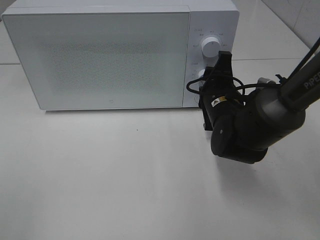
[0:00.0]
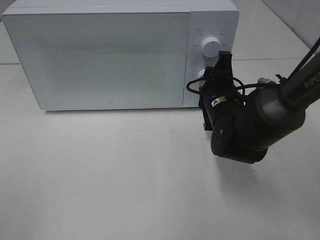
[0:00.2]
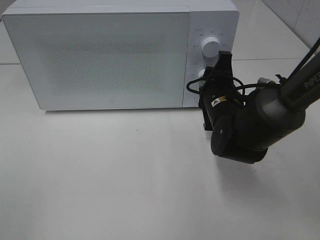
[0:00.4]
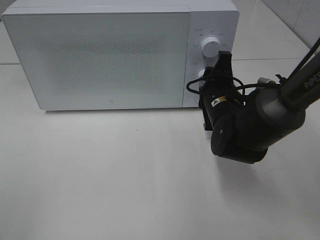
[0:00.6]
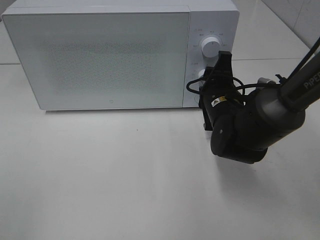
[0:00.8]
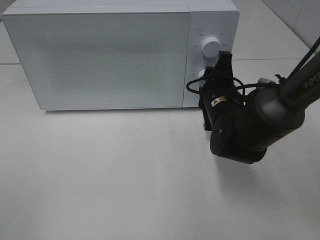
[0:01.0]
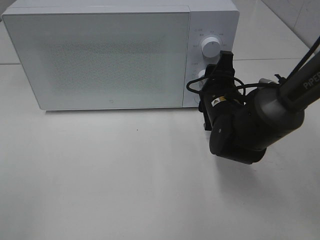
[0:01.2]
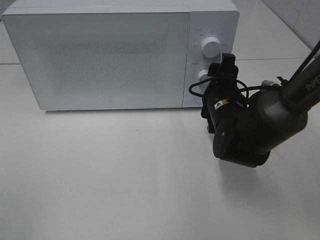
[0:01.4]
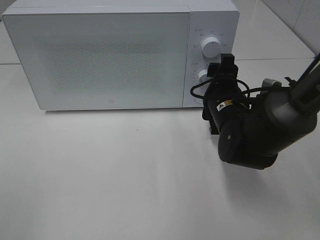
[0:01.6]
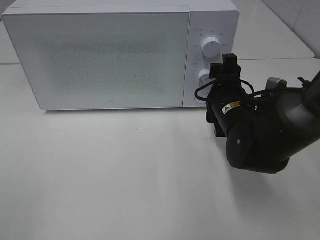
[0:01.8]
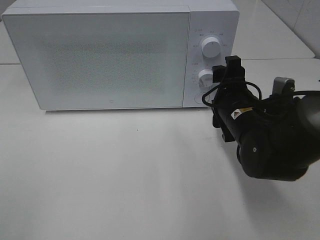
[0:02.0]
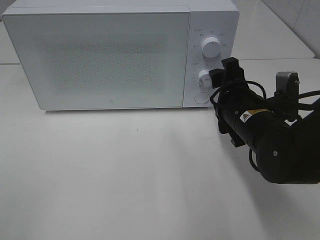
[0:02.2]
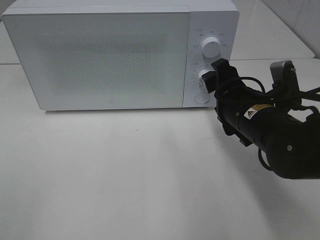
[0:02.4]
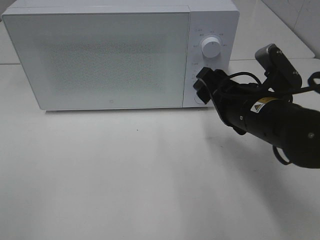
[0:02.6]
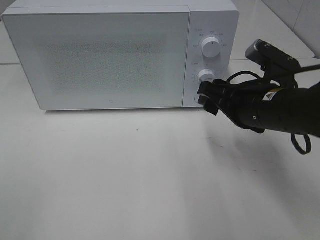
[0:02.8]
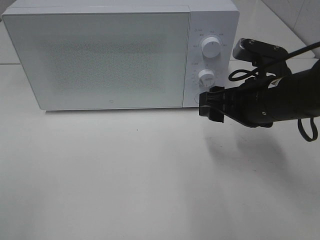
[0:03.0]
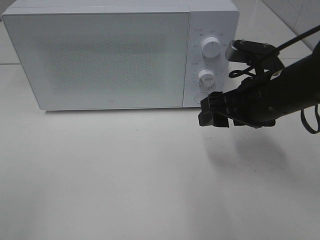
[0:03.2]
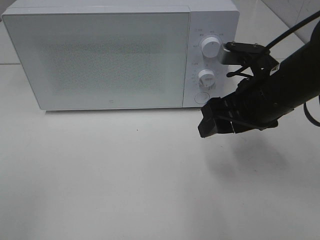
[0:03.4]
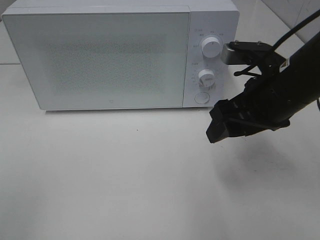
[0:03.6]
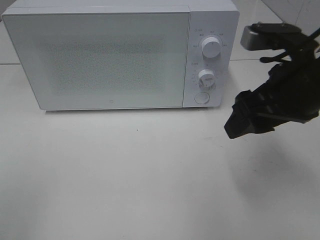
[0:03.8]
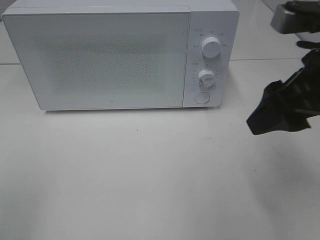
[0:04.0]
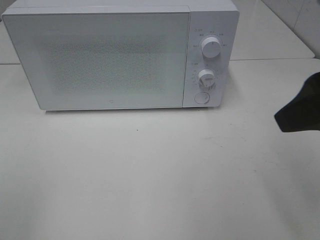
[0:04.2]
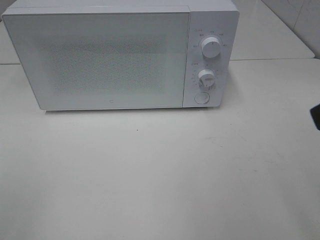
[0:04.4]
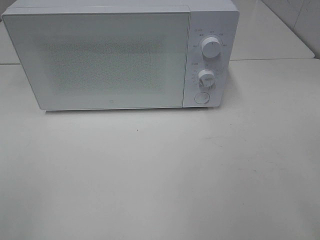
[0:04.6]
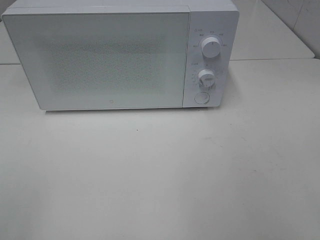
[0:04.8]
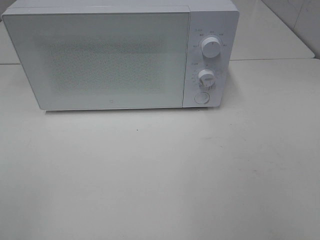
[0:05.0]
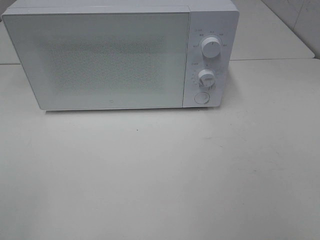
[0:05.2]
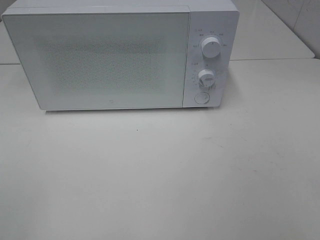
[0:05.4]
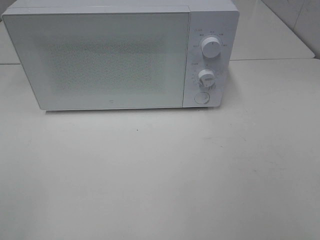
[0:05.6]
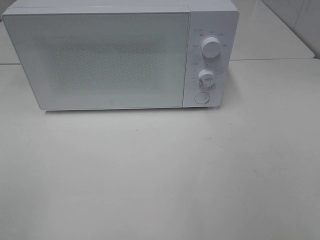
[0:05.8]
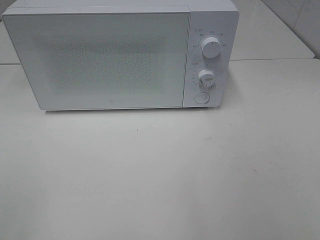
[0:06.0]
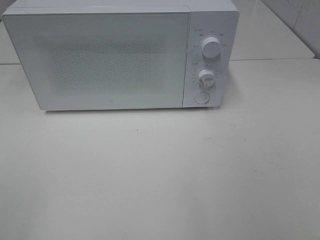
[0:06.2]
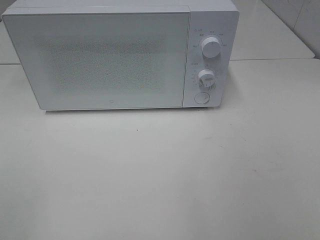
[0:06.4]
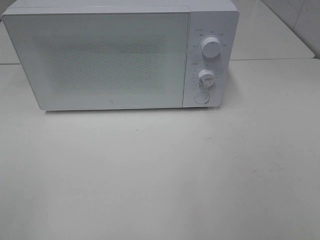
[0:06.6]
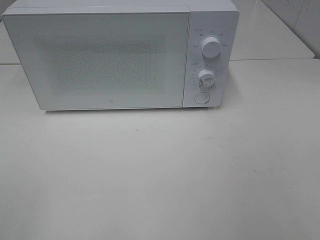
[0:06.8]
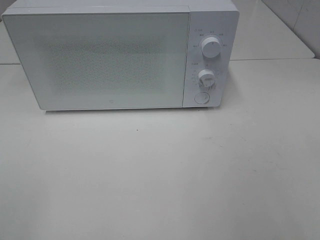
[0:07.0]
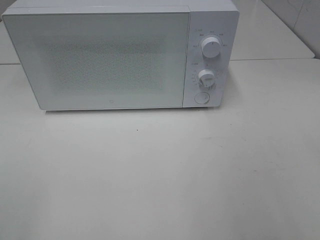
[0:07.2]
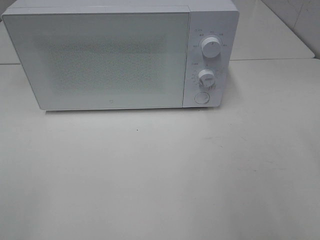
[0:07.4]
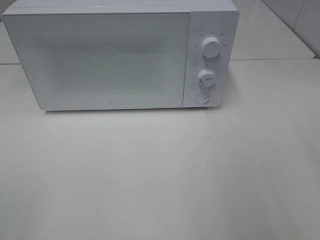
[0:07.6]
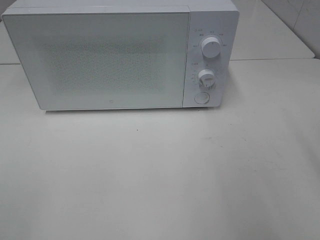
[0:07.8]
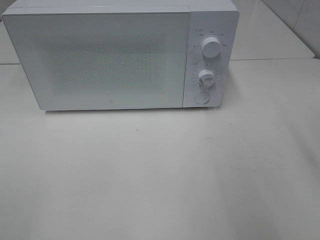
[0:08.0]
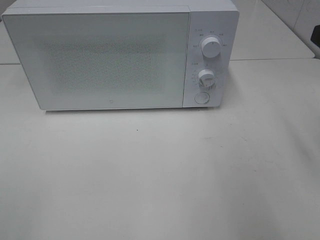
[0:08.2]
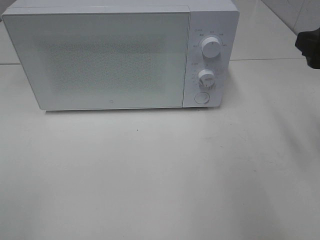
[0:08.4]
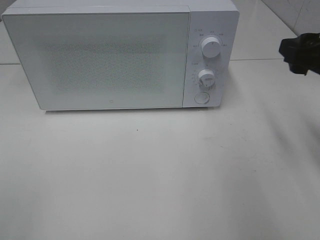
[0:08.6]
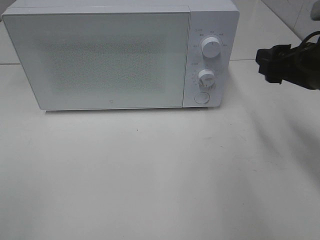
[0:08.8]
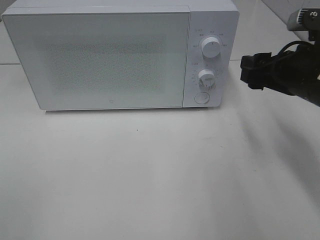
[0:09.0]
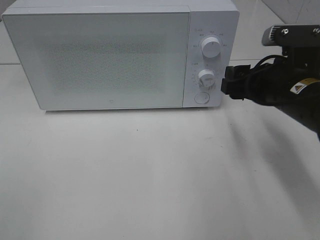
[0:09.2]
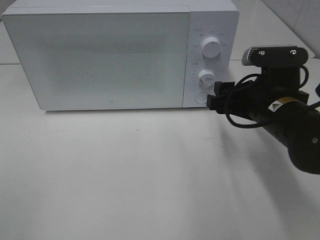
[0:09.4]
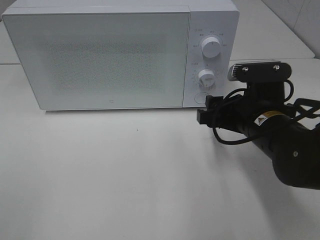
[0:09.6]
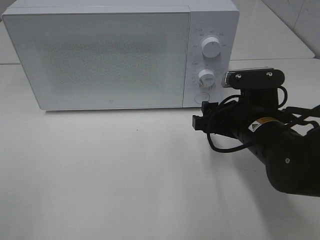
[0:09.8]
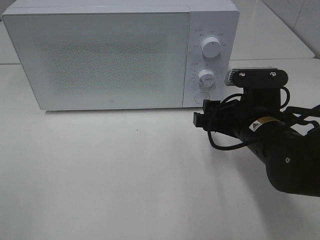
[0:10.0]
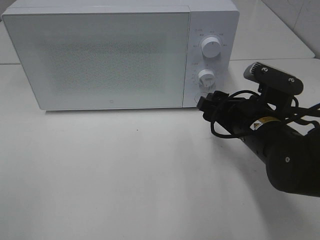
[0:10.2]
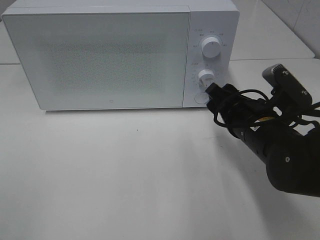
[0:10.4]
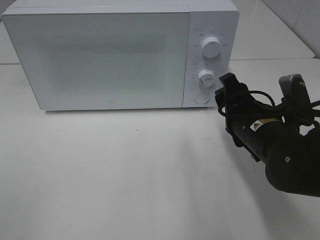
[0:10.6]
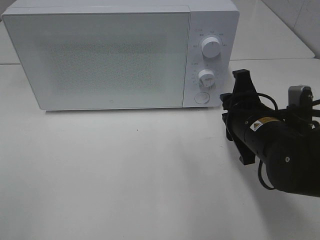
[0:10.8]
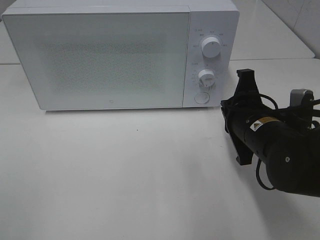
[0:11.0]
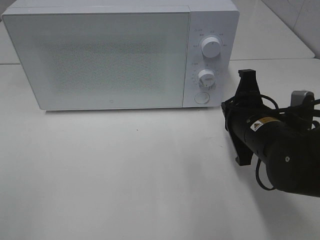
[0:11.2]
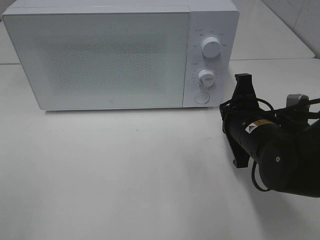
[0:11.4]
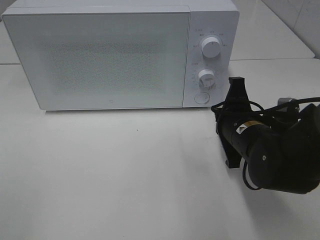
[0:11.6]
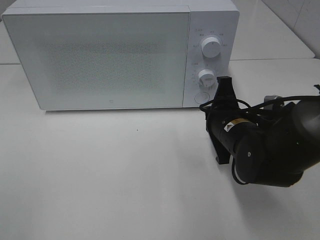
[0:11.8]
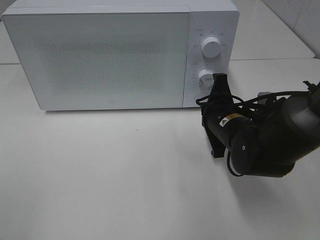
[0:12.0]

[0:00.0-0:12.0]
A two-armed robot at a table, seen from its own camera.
Task of the whole recording: Heat Sandwich.
0:00.0 to 0:01.6: Neither gripper changes place.
0:01.6 to 0:03.0: The right gripper goes approximately 10 cm upward and backward.
0:03.0 to 0:04.4: The right gripper heads upward, backward and to the right, covering about 20 cm.
0:07.6 to 0:09.0: The right gripper shifts some 20 cm forward, downward and to the left.
0:09.0 to 0:10.4: The right gripper moves downward and to the left, approximately 10 cm.
0:10.4 to 0:12.0: The right gripper ends up some 5 cm from where it was, and closes up.

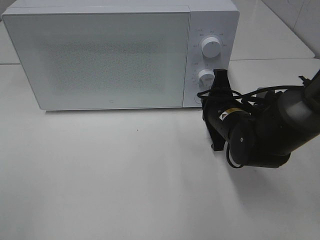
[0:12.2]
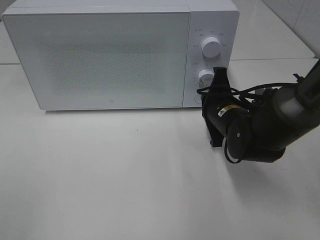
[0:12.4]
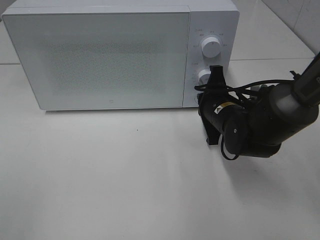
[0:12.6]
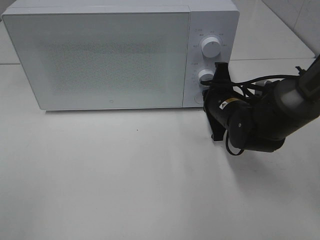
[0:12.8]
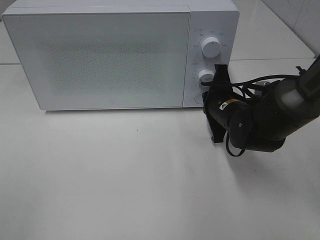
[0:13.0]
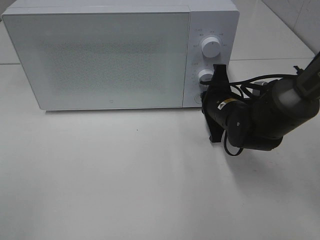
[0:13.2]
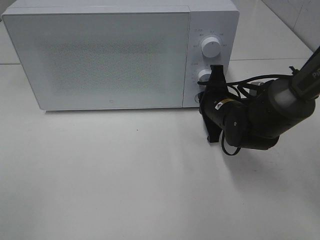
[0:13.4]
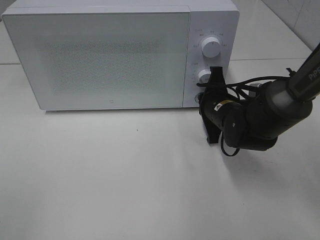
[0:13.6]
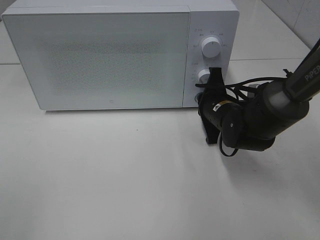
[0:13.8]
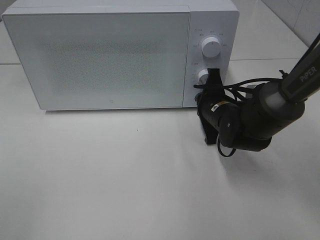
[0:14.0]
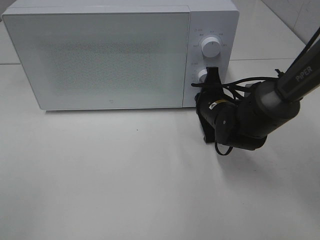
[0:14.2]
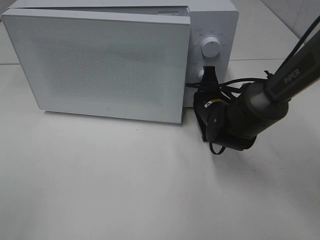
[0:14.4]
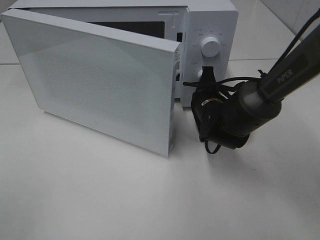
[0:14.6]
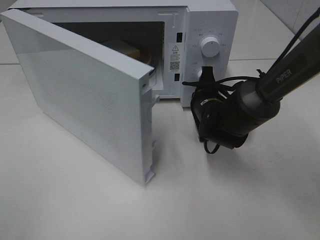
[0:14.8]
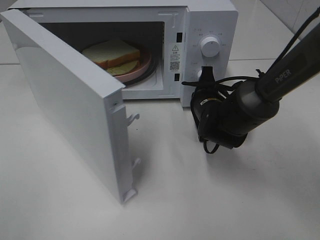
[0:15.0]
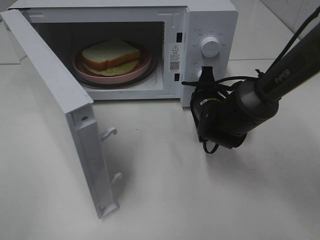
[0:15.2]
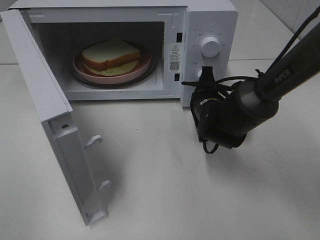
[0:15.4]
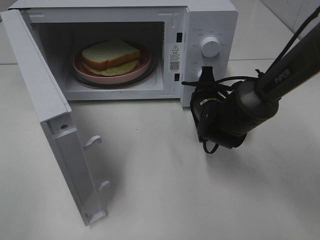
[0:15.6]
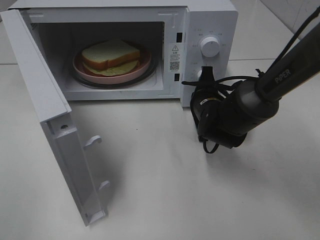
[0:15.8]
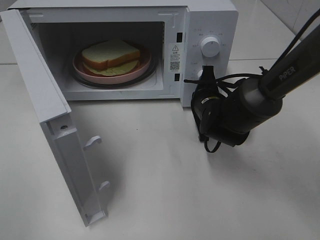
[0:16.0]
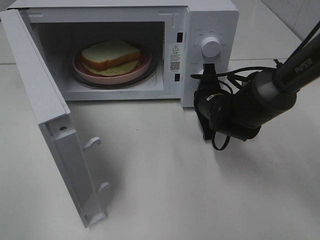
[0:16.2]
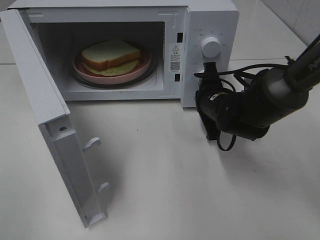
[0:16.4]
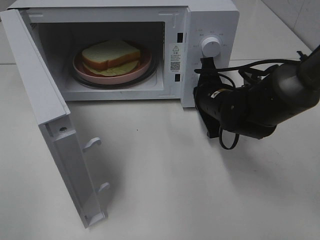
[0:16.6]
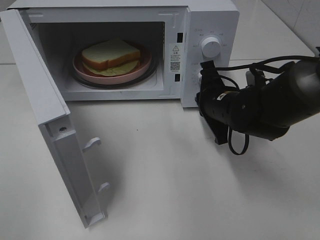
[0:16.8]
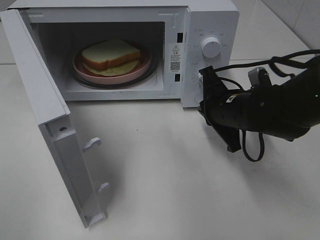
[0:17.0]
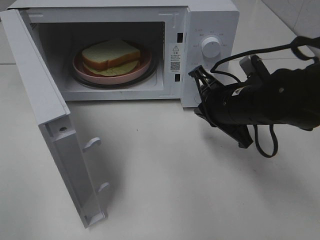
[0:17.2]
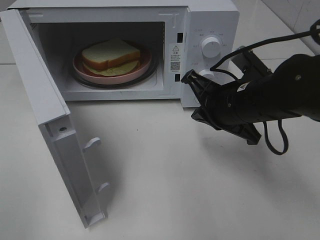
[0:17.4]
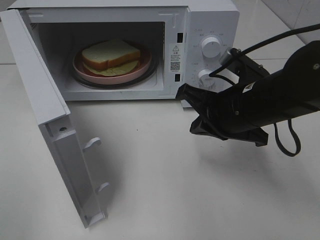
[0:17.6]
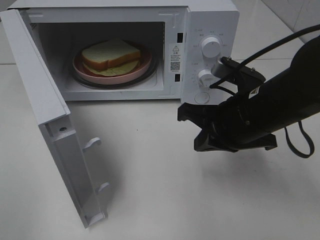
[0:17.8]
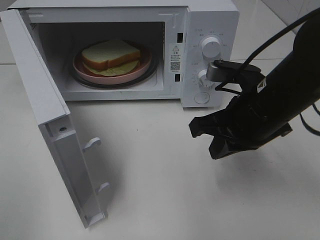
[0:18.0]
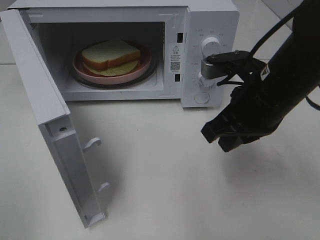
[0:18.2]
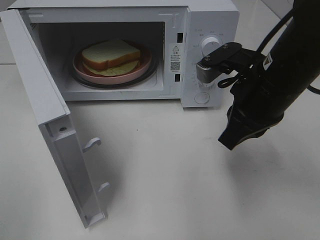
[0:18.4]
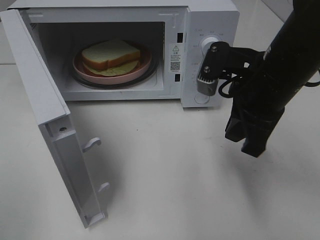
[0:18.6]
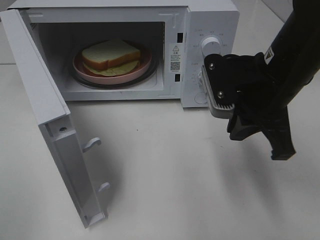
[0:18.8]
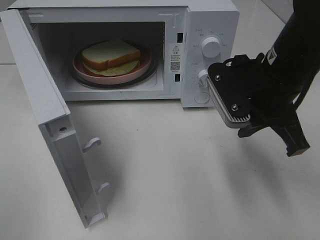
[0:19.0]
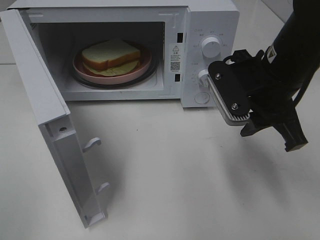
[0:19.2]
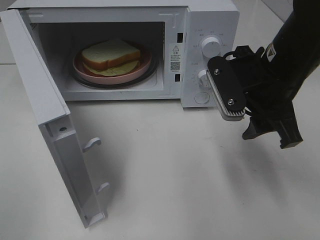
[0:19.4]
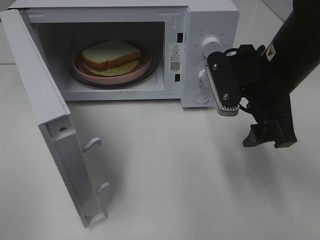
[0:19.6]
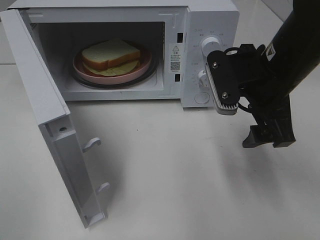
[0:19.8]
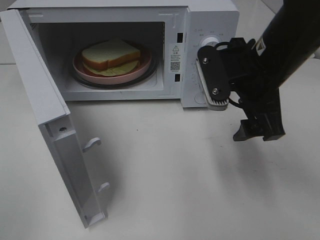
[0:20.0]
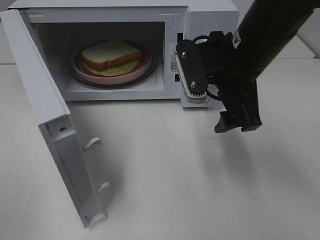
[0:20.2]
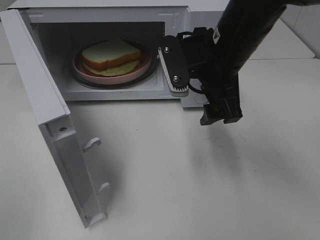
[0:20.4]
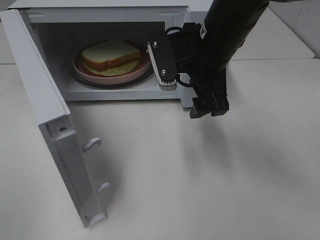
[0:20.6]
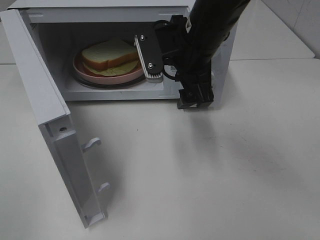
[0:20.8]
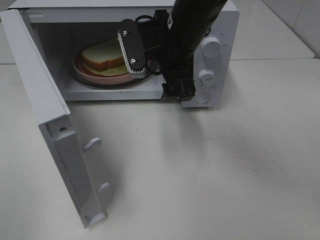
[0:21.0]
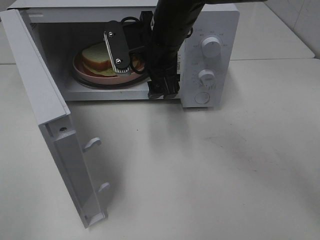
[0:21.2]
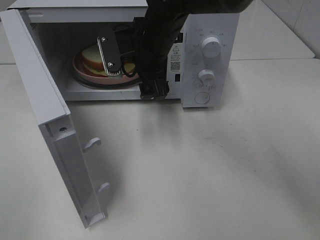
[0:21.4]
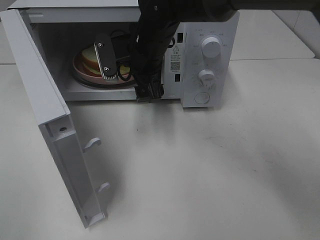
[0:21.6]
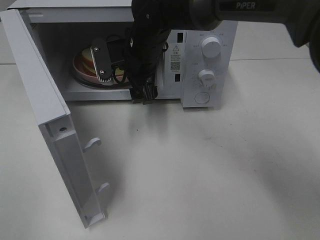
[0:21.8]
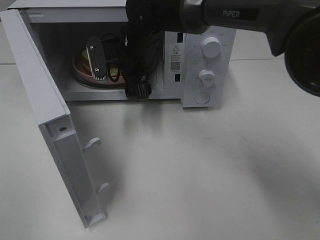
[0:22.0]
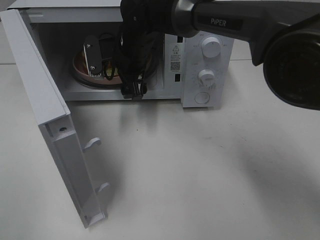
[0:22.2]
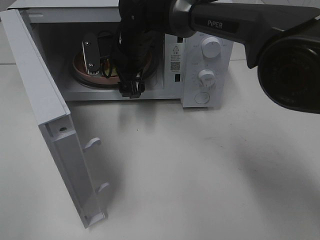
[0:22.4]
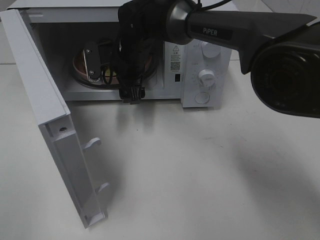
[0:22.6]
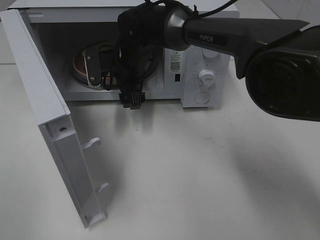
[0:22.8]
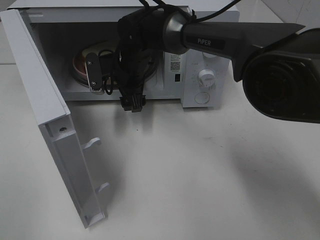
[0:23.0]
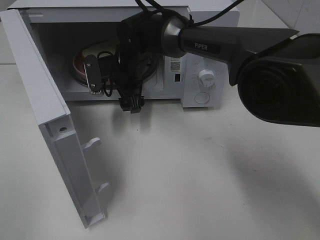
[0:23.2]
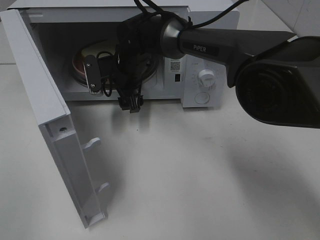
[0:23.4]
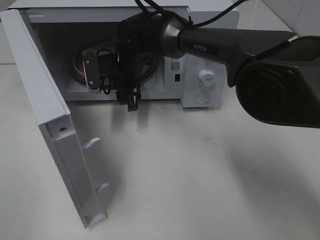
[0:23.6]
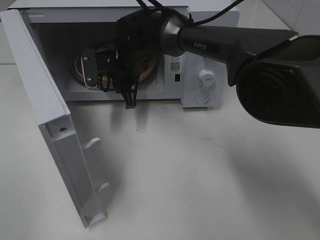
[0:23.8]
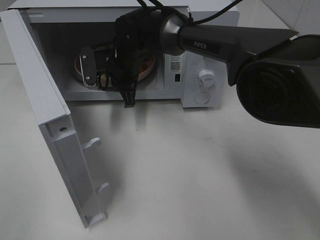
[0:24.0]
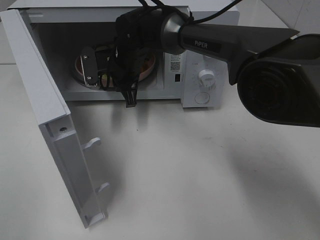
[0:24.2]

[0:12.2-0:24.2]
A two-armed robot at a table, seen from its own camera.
Task of the whole recording: Heat Sandwich.
Step, 0:12.2 to 0:16.4: Right hand: press the switch.
Step, 0:16.6 to 0:23.8: Right hand: grab the plate with the sandwich.
0:12.2 to 0:13.8: There are only small adjustments of the grippers.
0:15.2 to 0:16.6: The grippers stay close to where they were, moving slightly.
0:16.6 to 0:18.2: The right gripper shifts roughly 15 cm upward and backward.
0:18.2 to 0:19.8: The right gripper opens.
0:19.8 to 0:21.2: The right gripper is displaced to the left and forward by about 15 cm.
0:21.2 to 0:22.6: The right gripper is displaced forward, downward and to the left by roughly 10 cm.
0:22.6 to 0:24.2: The right gripper closes its fingers.
